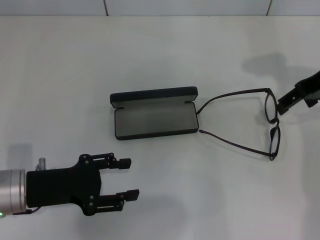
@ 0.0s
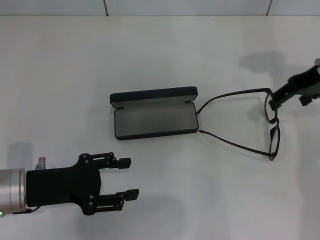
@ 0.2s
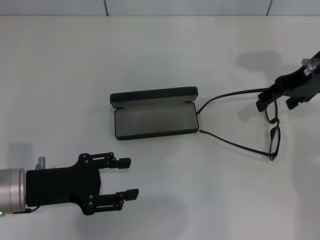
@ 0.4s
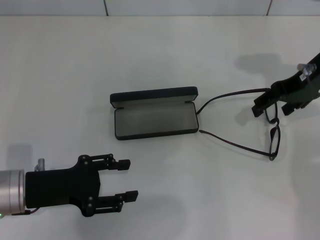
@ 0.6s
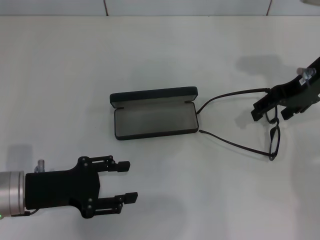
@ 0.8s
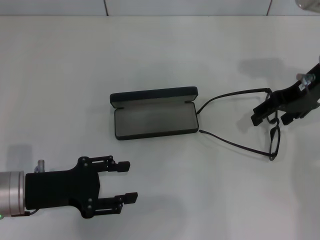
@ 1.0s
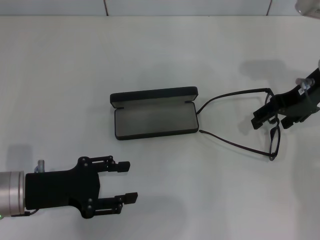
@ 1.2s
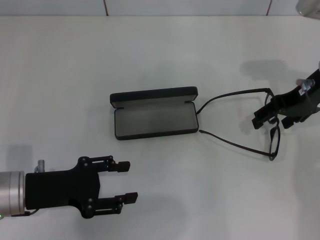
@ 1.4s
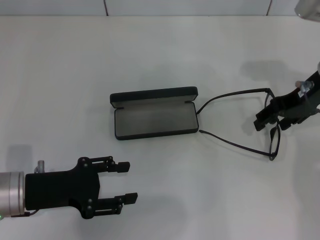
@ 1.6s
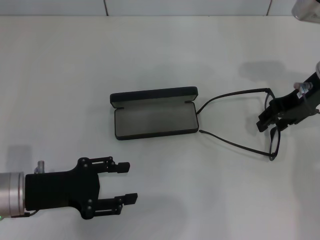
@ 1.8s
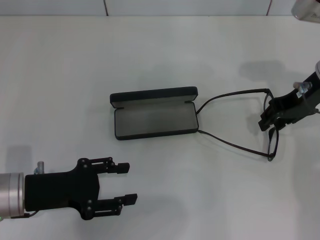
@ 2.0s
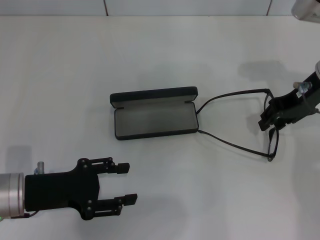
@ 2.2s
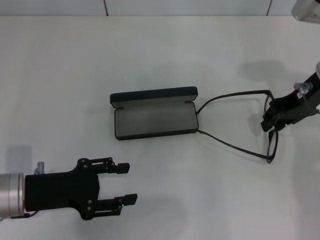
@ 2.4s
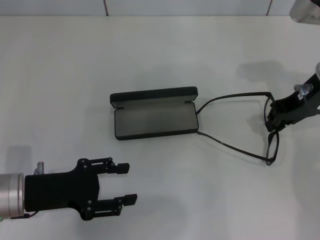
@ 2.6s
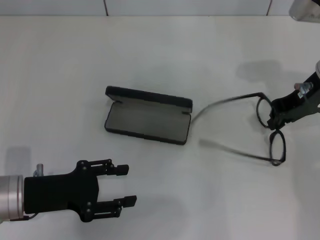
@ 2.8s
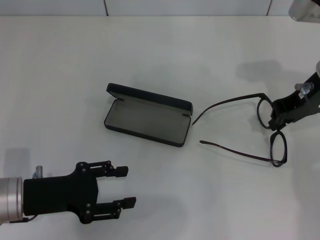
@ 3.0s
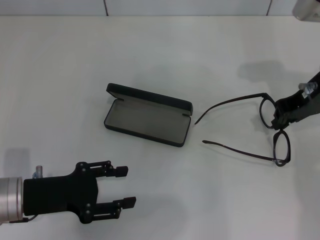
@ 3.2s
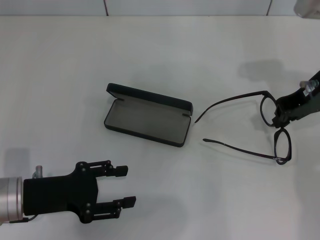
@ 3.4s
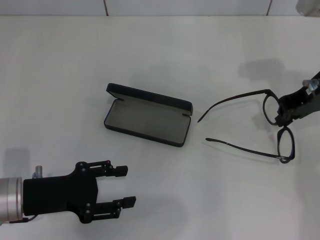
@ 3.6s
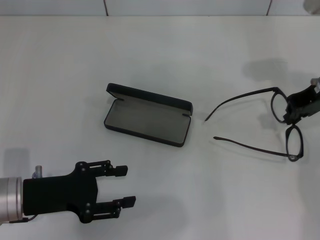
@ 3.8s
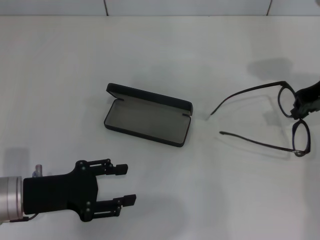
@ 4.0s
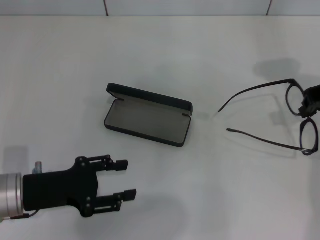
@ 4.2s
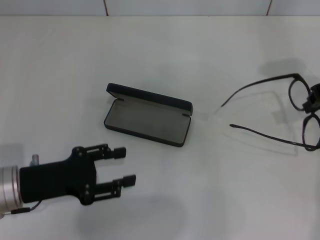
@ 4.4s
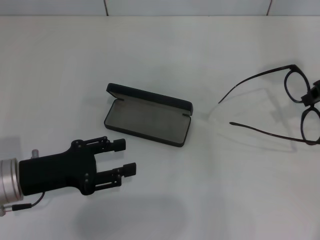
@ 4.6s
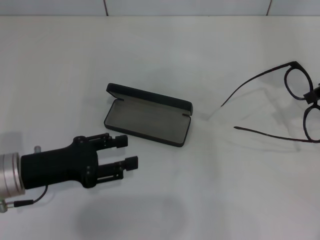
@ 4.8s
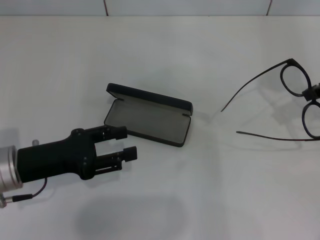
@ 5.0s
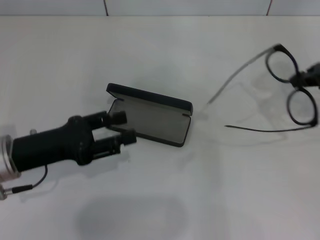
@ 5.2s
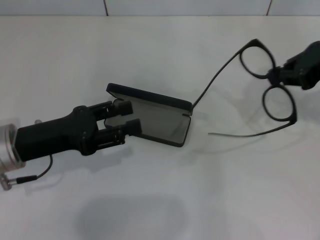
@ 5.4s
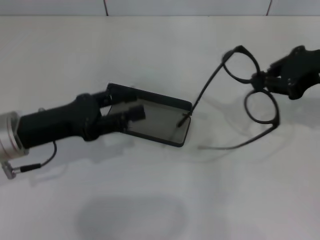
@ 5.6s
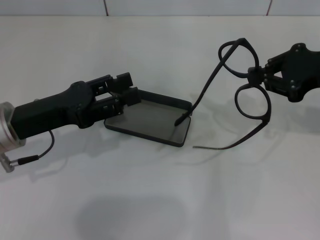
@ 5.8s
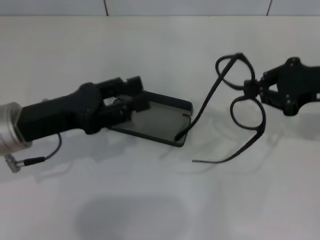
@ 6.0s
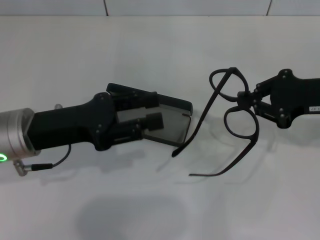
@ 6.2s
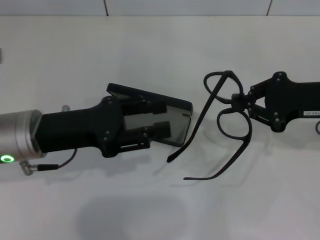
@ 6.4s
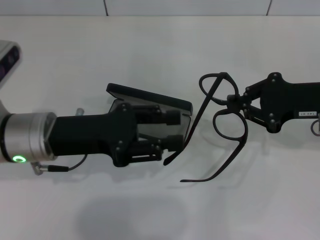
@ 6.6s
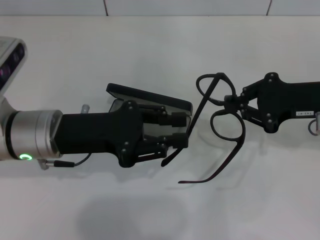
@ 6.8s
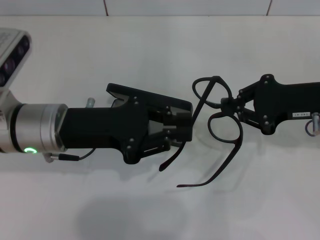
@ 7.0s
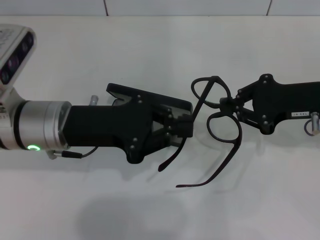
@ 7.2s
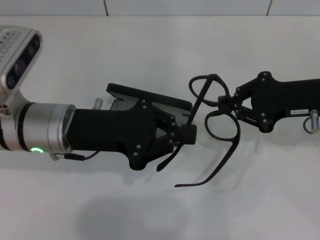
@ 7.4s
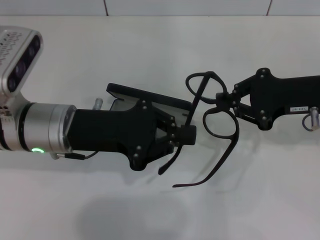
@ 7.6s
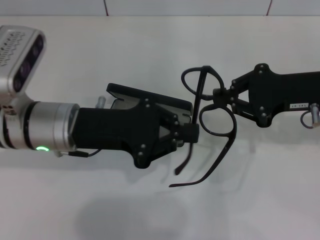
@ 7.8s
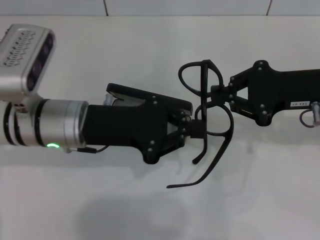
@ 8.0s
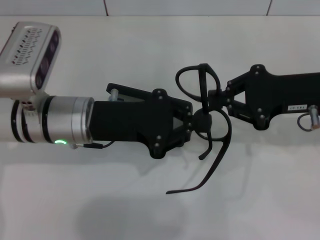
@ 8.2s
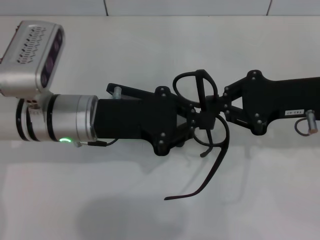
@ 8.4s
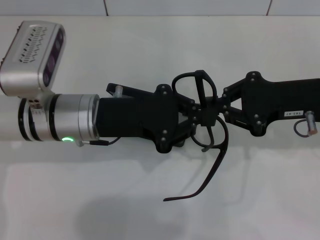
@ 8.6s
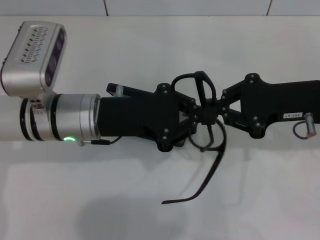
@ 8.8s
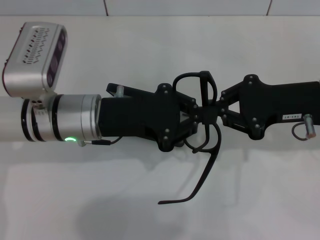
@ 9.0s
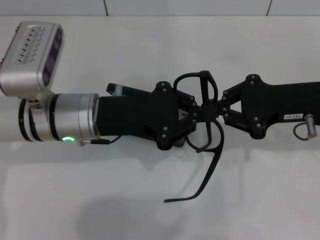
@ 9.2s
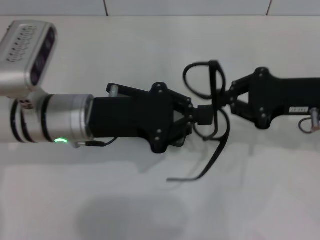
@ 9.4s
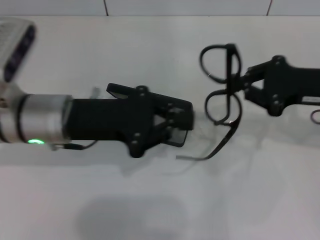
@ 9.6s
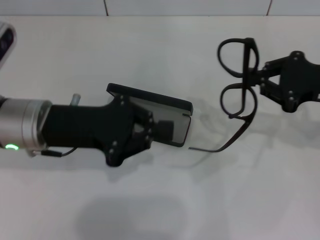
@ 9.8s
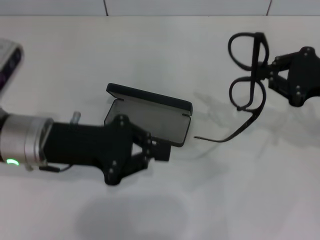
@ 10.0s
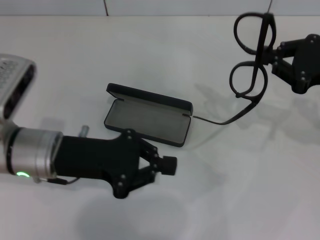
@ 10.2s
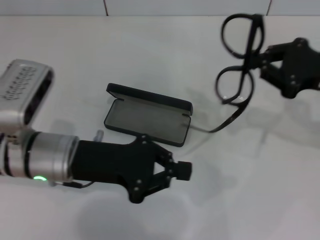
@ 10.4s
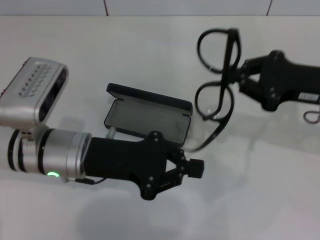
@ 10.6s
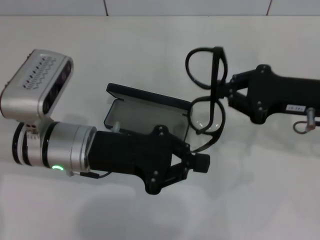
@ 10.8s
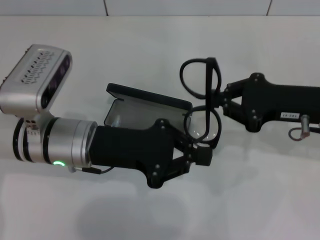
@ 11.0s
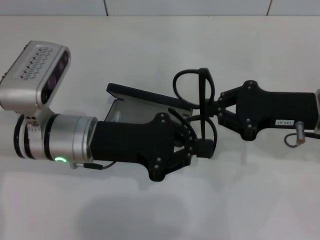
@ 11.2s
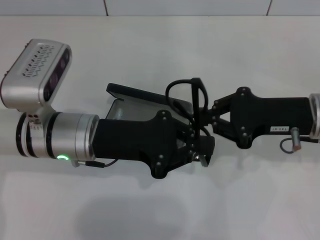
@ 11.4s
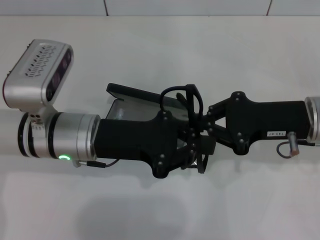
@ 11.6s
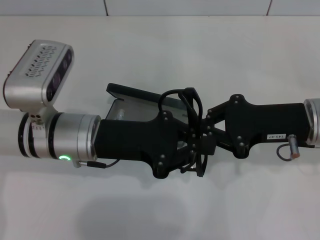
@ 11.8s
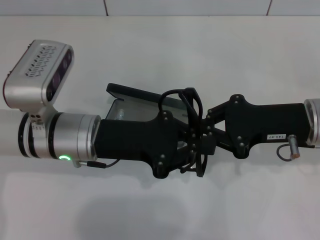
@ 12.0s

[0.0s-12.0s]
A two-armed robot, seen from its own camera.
Step, 0.0s to 2.8s: Grab the eyeglass frame with your right hand.
0.0s to 1.6s: The grippers make only small movements.
1.6s to 3.0s: The right gripper closes up.
3.0s to 4.4s: The right gripper shifts some 5 cm to the right.
4.4s to 6.0s: The right gripper shifts by roughly 5 cm, while the left gripper goes approximately 5 cm upward.
6.0s to 7.6s: The left gripper moves to the right, approximately 5 cm, and closes up.
9.0s to 10.4s: The left gripper moves roughly 5 cm.
10.4s to 12.0s: The right gripper shifts approximately 5 cm to the left.

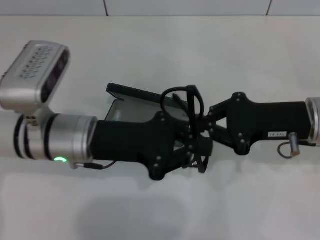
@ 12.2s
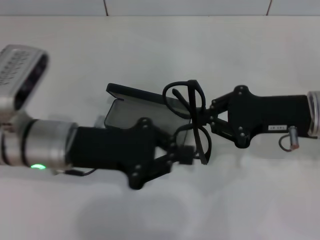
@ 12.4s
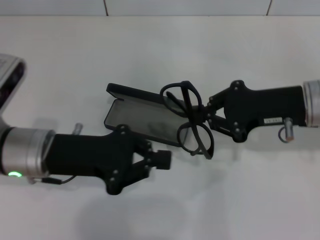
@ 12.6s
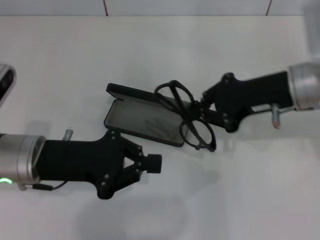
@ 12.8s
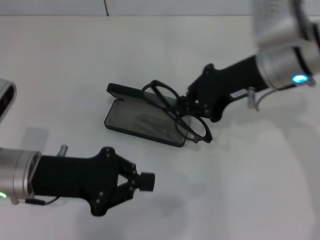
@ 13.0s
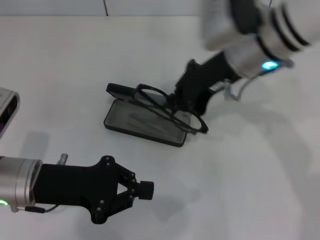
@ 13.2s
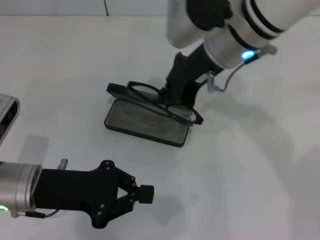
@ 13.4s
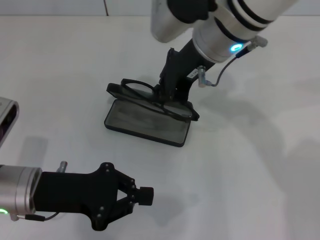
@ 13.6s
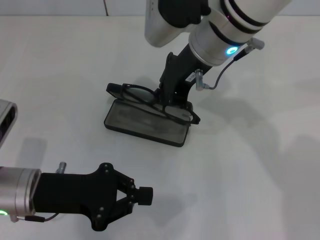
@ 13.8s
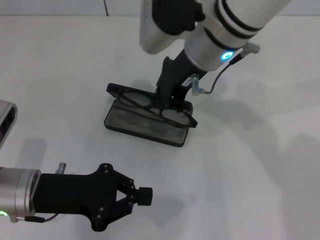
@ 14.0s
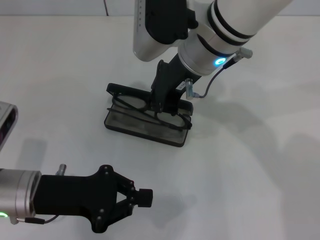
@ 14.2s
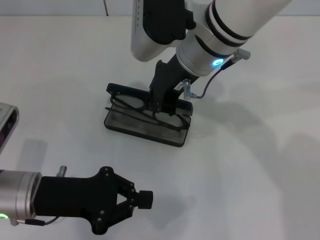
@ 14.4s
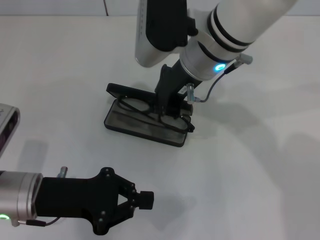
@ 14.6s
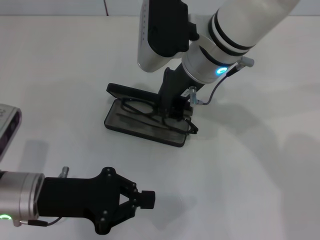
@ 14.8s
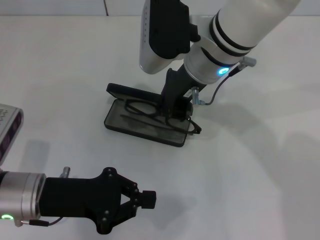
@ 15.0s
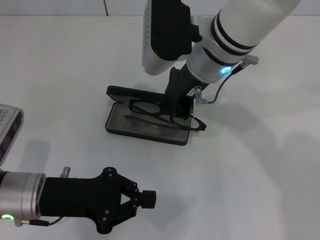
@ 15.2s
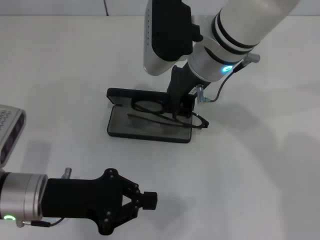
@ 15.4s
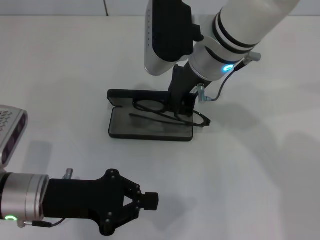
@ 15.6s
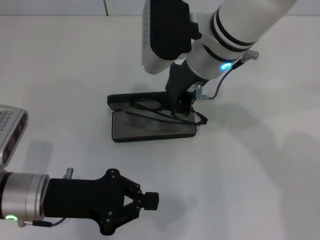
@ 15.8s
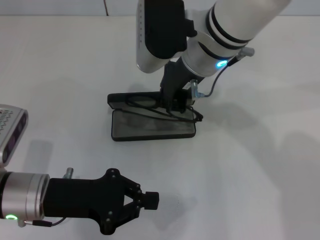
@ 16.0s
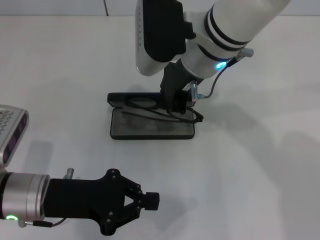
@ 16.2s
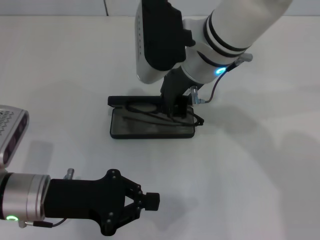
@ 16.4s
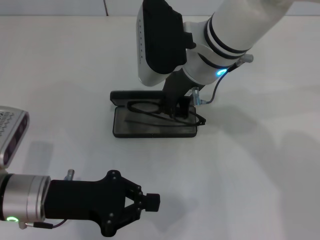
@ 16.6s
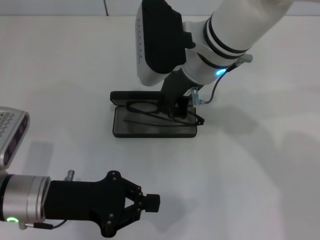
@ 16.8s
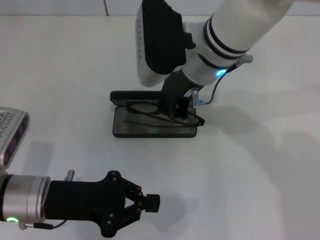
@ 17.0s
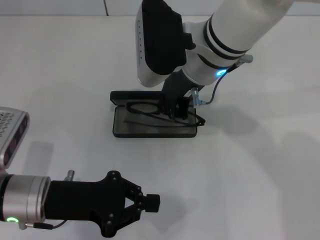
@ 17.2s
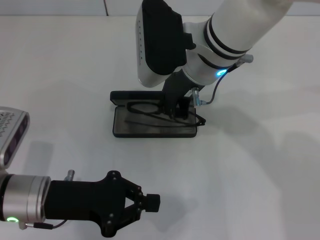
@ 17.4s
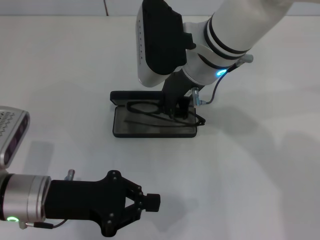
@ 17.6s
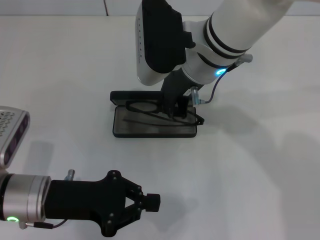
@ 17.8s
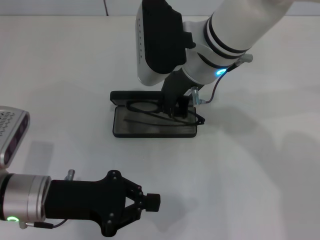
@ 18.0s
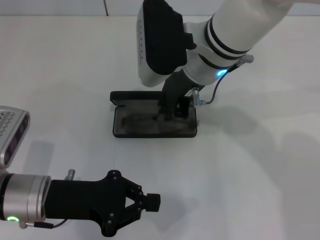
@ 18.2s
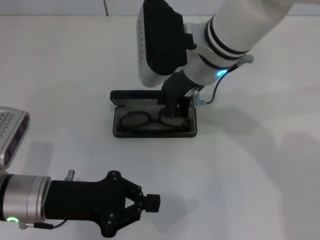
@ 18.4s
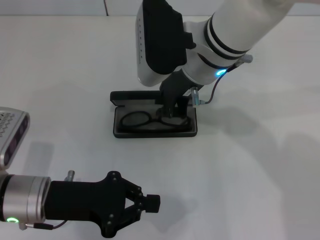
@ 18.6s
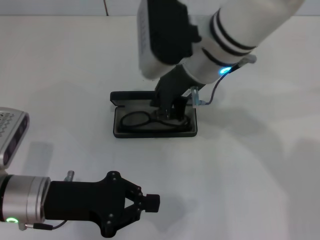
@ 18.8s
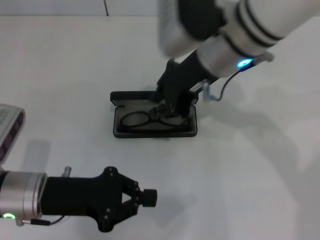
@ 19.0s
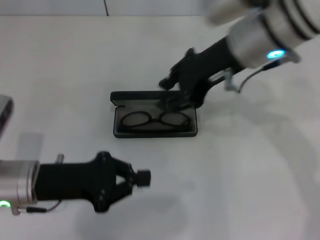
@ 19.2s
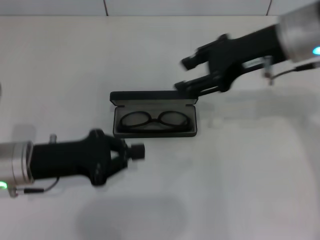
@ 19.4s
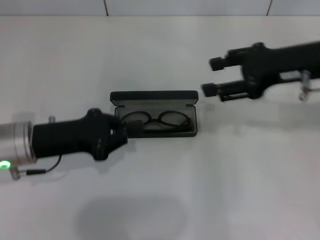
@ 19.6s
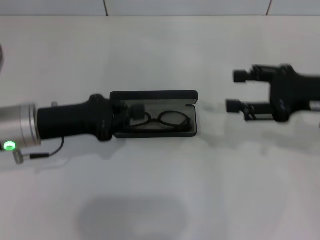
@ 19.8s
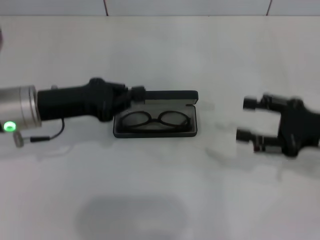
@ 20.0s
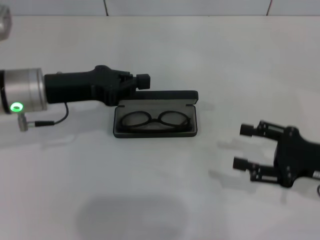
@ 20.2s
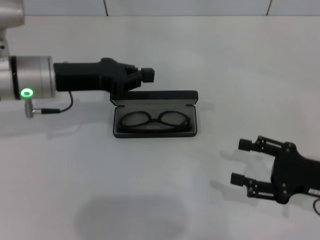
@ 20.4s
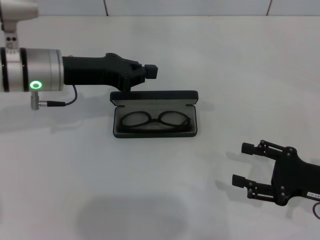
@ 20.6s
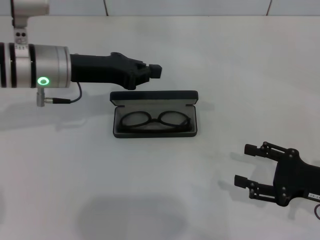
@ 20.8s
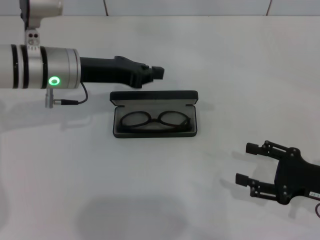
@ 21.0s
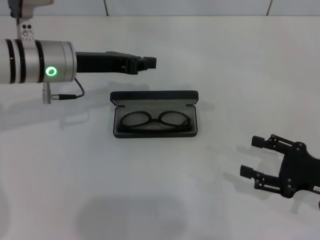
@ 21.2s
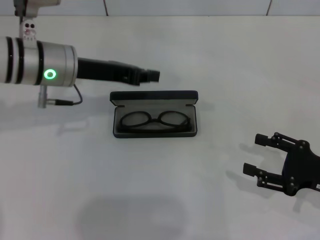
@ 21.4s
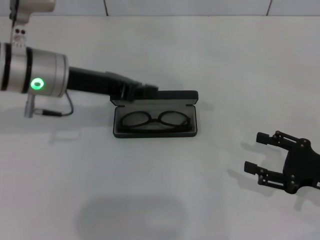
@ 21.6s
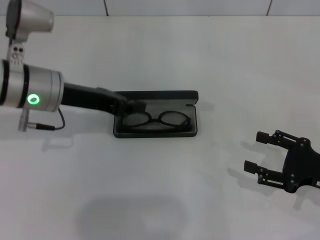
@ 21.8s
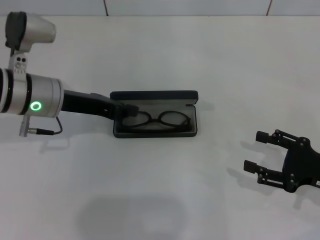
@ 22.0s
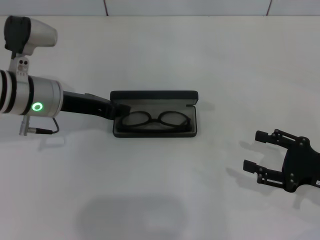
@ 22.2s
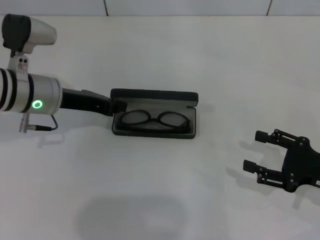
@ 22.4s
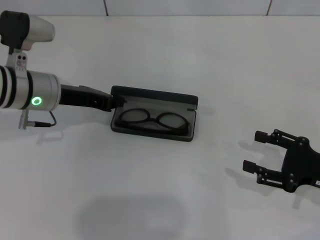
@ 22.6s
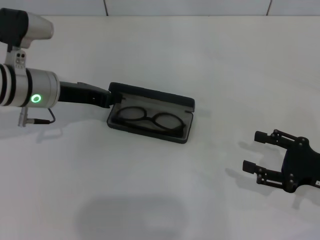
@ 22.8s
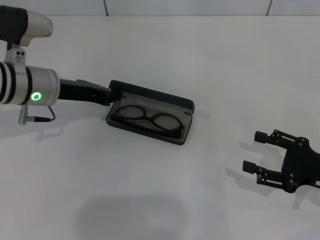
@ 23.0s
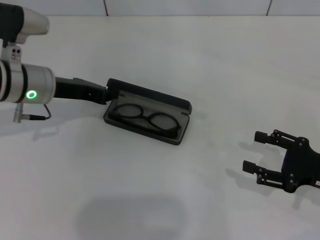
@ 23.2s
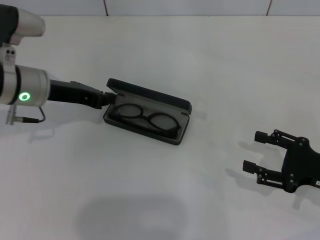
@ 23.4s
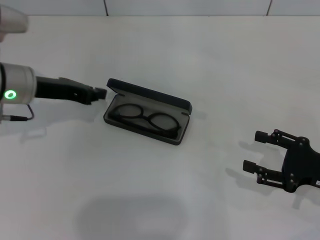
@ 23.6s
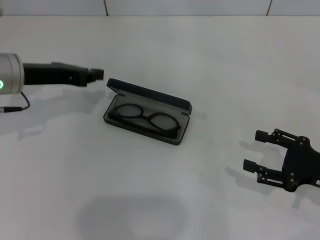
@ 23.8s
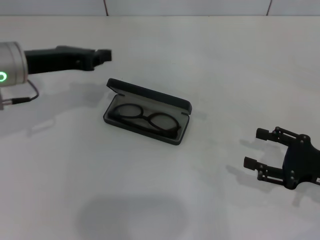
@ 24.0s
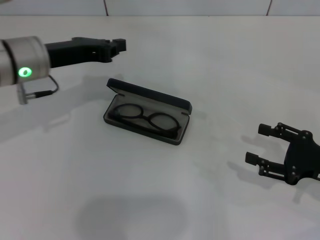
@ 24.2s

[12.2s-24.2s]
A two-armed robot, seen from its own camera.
Step, 12.2s to 18.4s: Put the glasses into the case with your right hand.
12.2s to 13.8s: The left gripper moves to the left and backward, roughly 10 cm, while the right gripper is displaced to the left and upward by roughly 20 cm.
13.8s to 16.6s: The grippers move only a little.
16.6s to 18.2s: The two grippers keep their place.
18.2s to 19.8s: The left gripper goes roughly 5 cm forward, while the right gripper goes approximately 25 cm to the right, and opens.
19.8s to 21.2s: The right gripper heads downward and backward, covering some 15 cm. Meanwhile the left gripper shifts some 10 cm forward.
21.2s to 22.6s: The grippers move only a little.
